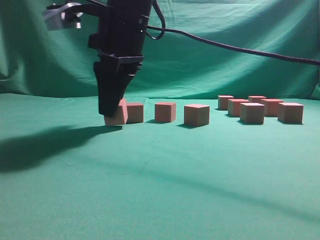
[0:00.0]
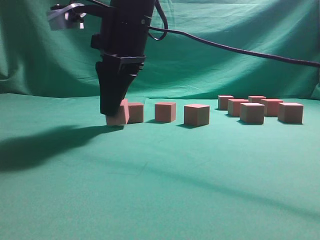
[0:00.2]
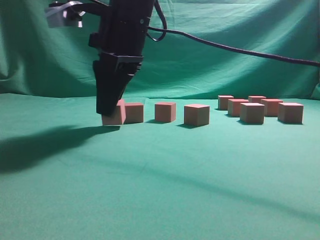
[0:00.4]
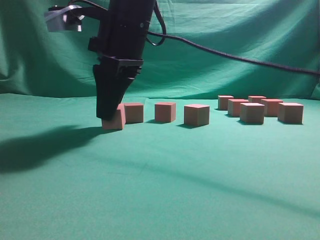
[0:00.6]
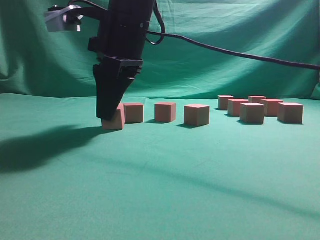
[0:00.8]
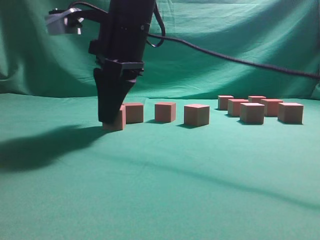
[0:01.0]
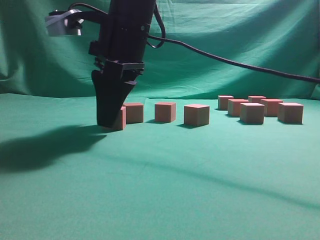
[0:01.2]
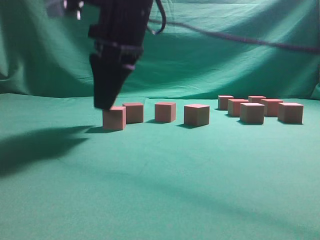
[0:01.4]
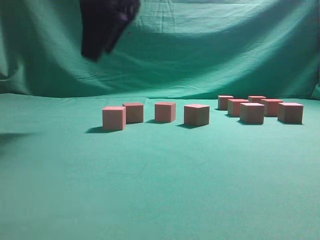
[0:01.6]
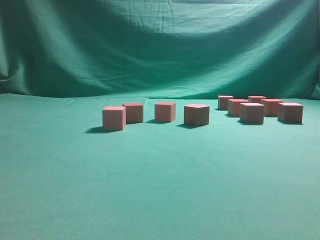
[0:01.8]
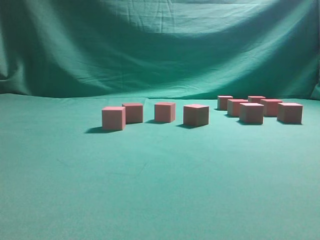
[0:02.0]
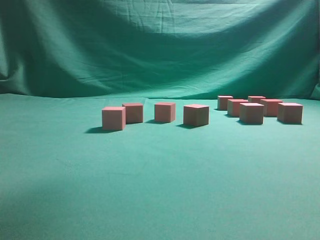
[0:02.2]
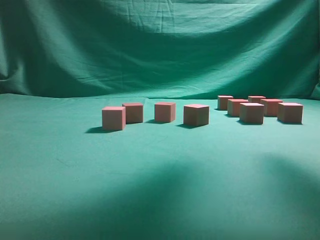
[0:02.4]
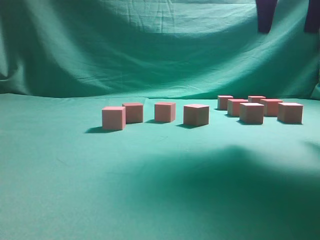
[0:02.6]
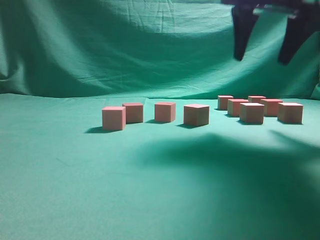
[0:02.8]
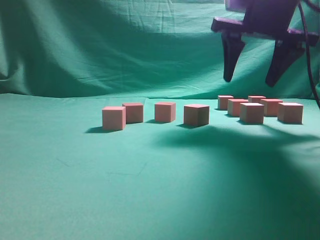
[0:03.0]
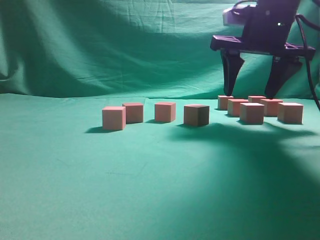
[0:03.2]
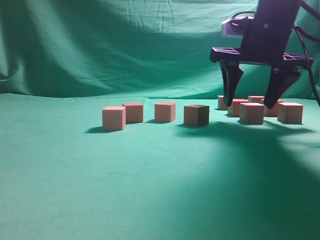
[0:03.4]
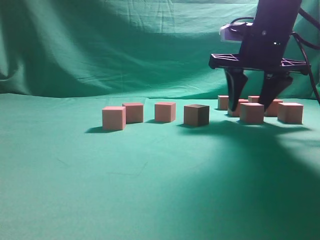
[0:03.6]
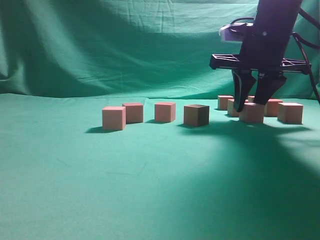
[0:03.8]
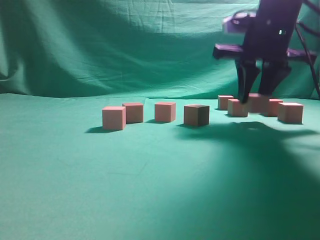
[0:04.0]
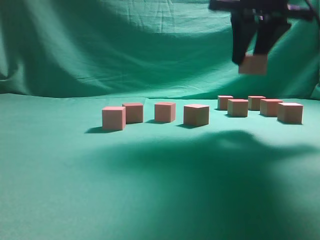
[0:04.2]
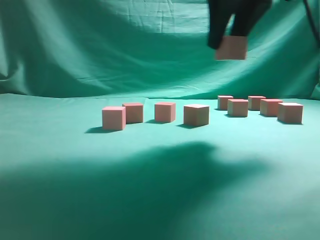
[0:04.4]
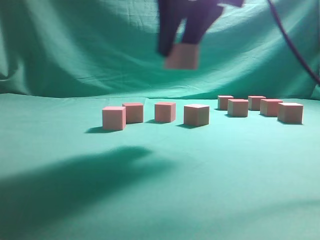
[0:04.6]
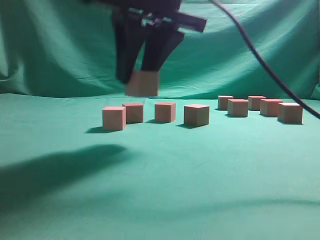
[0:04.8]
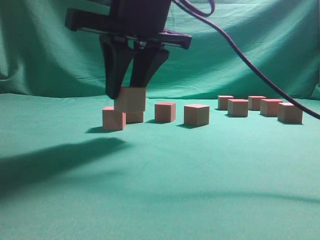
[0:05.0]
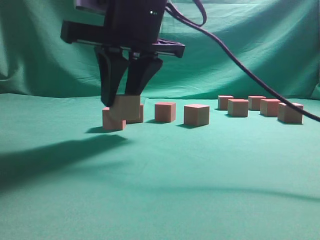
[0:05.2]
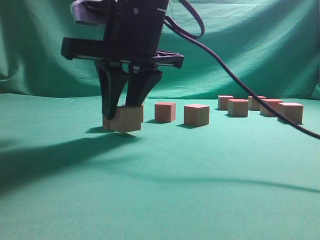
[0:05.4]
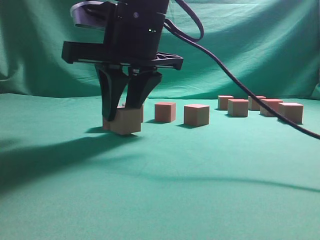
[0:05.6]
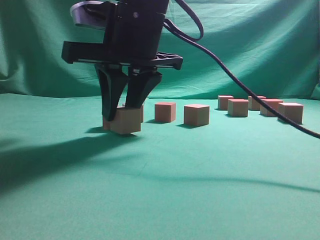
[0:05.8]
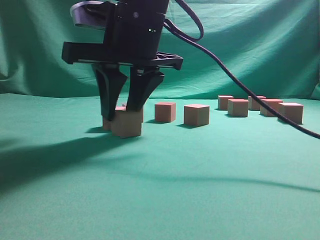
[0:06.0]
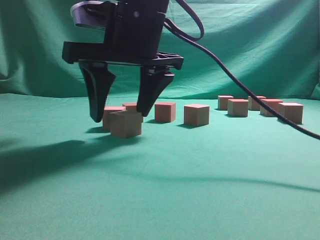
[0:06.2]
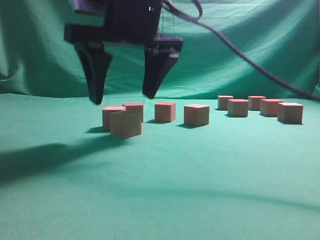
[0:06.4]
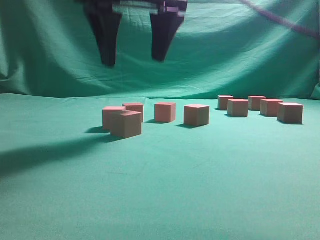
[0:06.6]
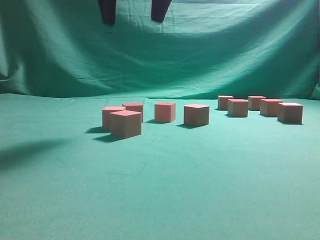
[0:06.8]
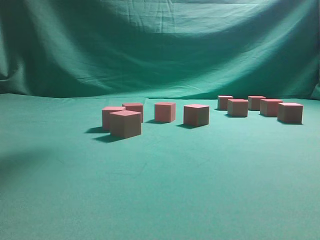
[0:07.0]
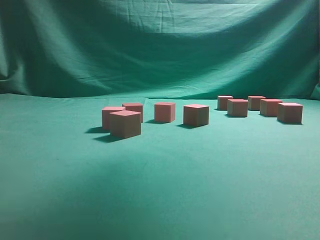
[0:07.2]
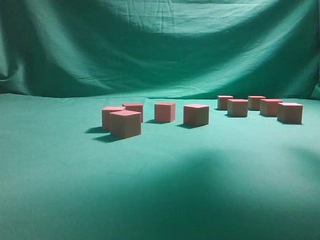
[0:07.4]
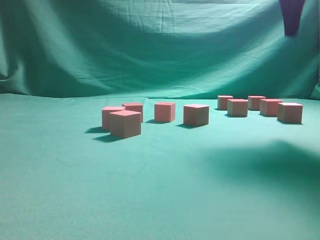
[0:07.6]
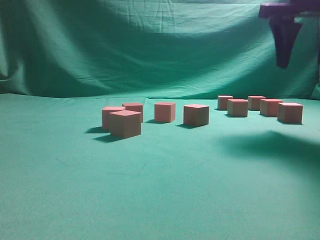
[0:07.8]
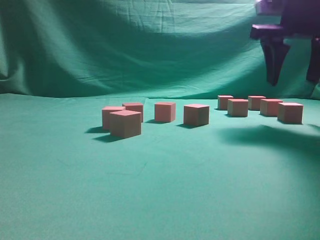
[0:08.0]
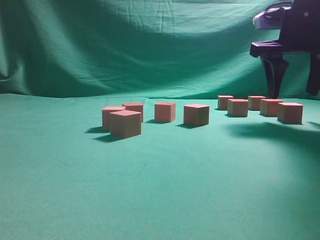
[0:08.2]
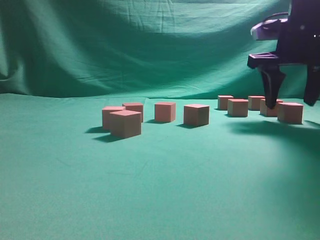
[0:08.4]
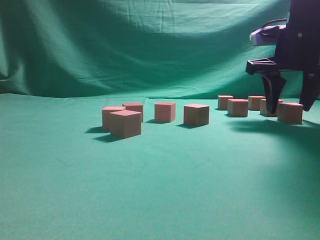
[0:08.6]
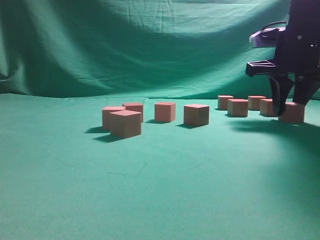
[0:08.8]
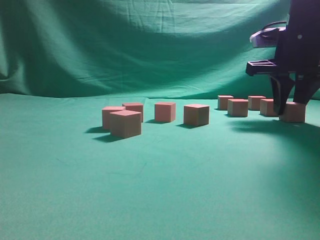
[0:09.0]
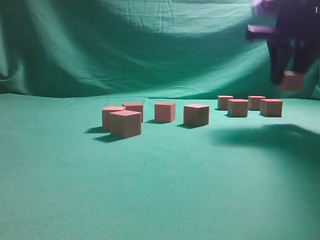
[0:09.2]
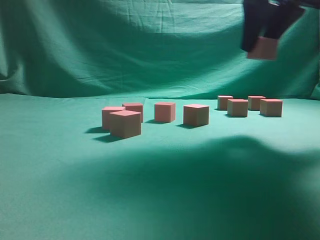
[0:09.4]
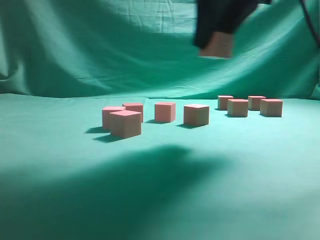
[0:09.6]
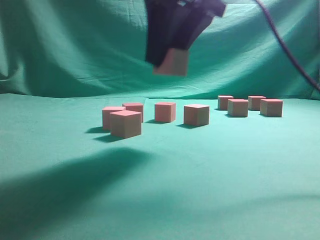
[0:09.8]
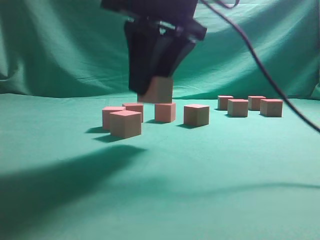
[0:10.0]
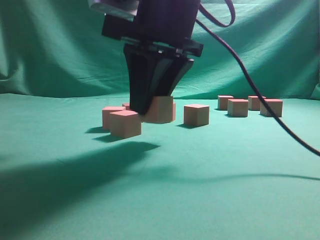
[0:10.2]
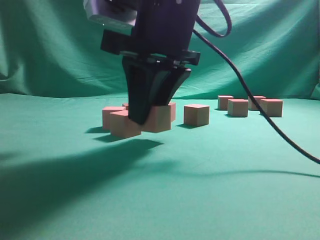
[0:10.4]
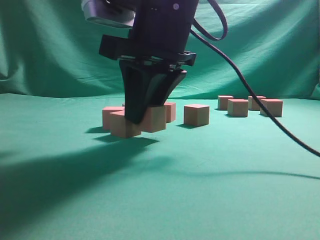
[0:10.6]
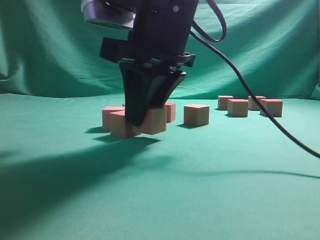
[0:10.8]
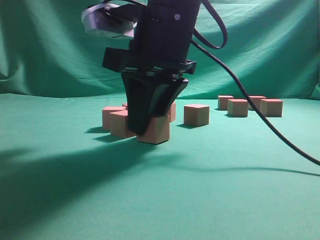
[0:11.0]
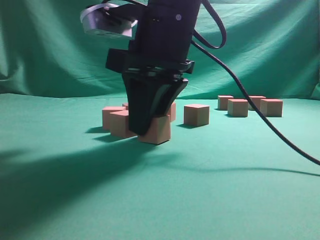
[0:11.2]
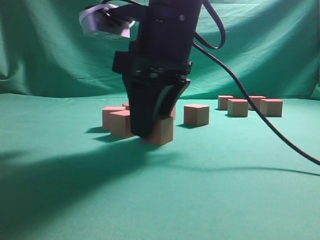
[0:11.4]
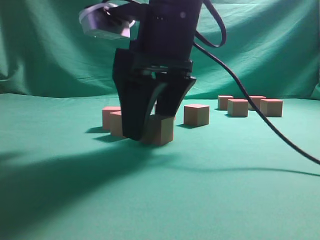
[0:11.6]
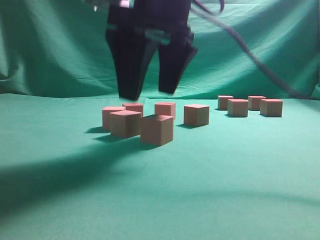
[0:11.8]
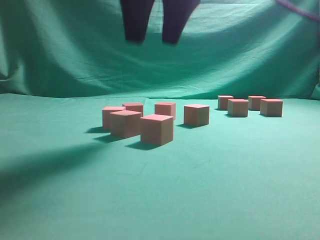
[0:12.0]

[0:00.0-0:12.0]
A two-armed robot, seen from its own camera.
Task of the whole recording: pick up the multiple cubes in two columns one by one and place them in another position on the table.
Step, 1.6 to 4.0 s: Pick up the block on the table.
Step, 4.2 to 6.4 s: Place the block at the correct position to assemble the letter S.
Step, 6.6 to 9.0 s: Pick up the block on the table.
Step, 9.2 to 11.6 s: Place the block at the correct position to assemble the letter S.
0.0 to 1.6 s: The right gripper heads upward, covering roughly 10 cm, and opens.
1.6 to 3.0 s: The right gripper shifts approximately 20 cm to the right.
3.0 to 4.4 s: The right gripper moves backward, to the left and upward, approximately 10 cm, and closes.
4.4 to 6.0 s: The right gripper travels to the left and downward by about 15 cm.
6.0 to 7.6 s: The right gripper goes roughly 25 cm to the right and upward.
7.6 to 9.0 s: The right gripper travels downward by approximately 10 cm, and closes.
9.0 to 10.4 s: The right gripper shifts some 25 cm to the left and backward.
10.4 to 12.0 s: The right gripper is displaced upward by approximately 10 cm, and opens up.

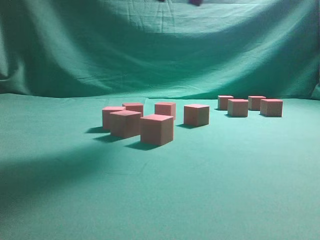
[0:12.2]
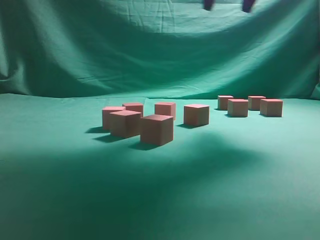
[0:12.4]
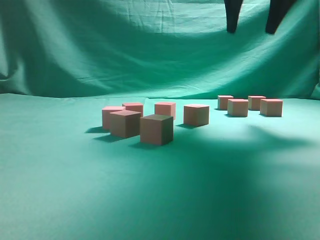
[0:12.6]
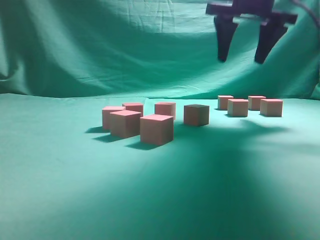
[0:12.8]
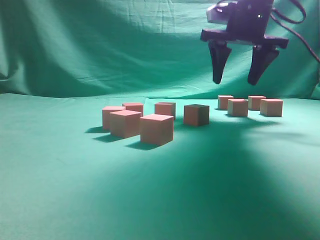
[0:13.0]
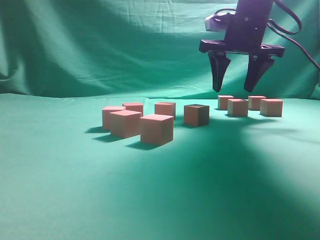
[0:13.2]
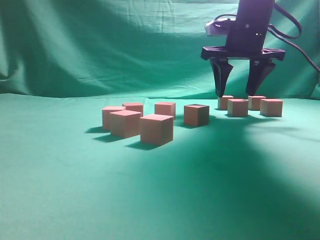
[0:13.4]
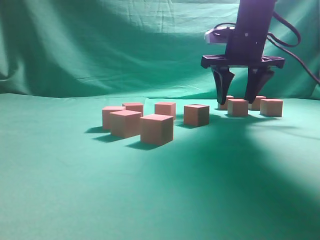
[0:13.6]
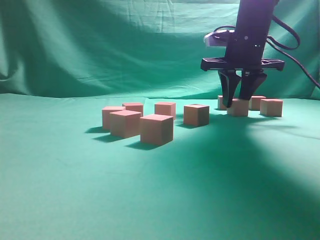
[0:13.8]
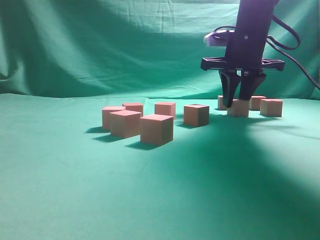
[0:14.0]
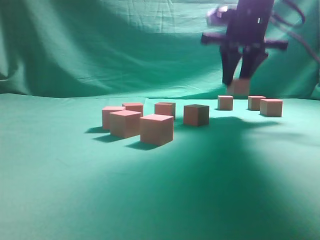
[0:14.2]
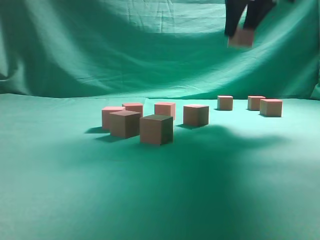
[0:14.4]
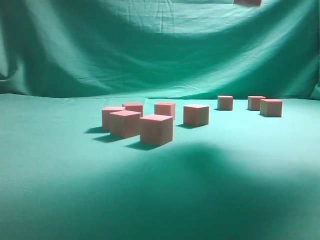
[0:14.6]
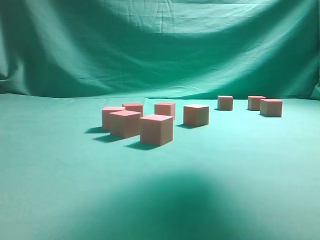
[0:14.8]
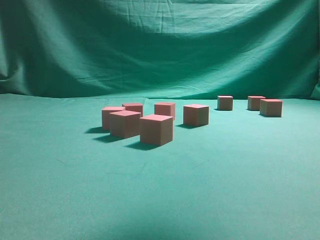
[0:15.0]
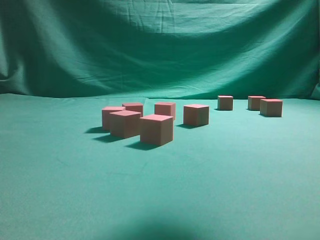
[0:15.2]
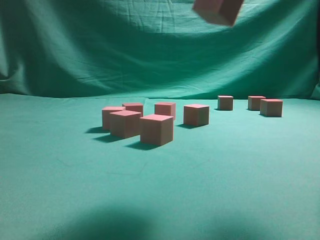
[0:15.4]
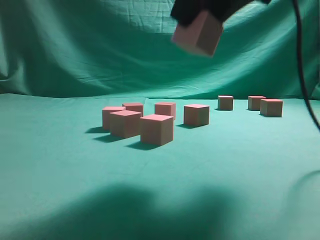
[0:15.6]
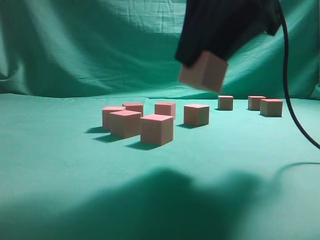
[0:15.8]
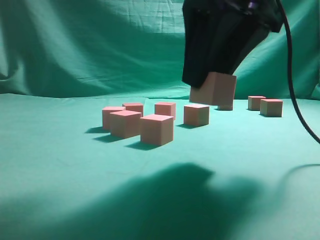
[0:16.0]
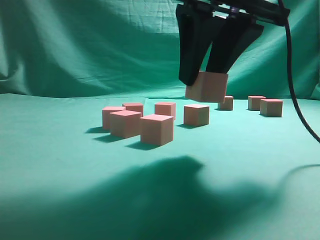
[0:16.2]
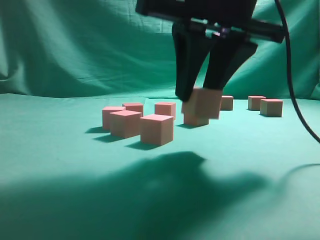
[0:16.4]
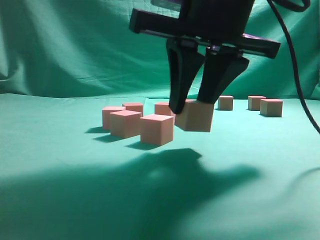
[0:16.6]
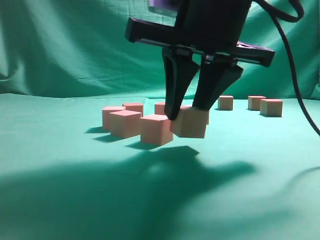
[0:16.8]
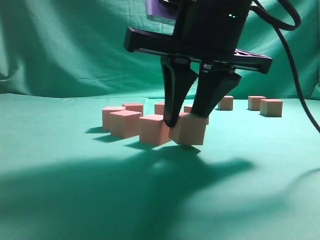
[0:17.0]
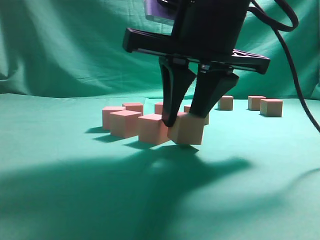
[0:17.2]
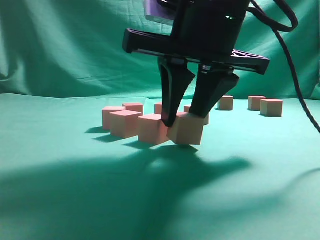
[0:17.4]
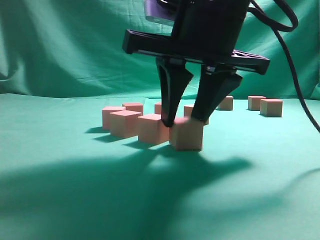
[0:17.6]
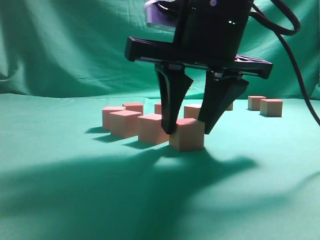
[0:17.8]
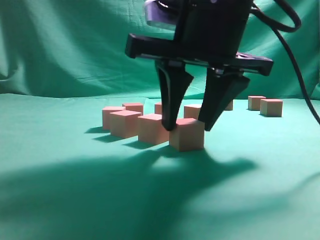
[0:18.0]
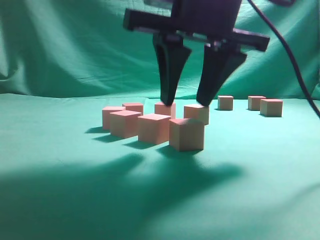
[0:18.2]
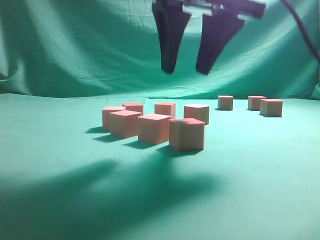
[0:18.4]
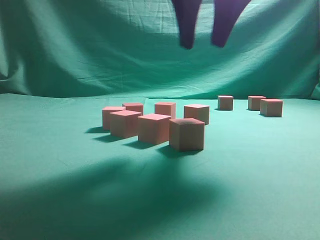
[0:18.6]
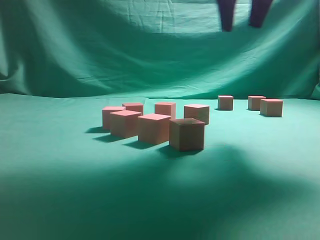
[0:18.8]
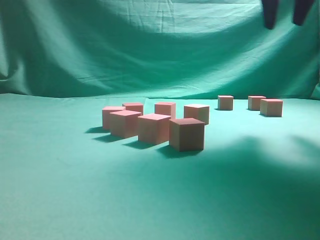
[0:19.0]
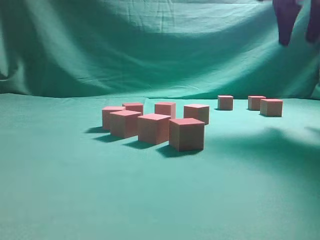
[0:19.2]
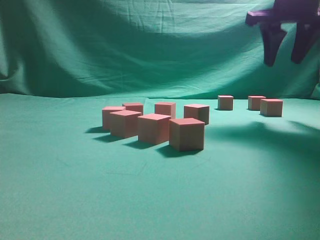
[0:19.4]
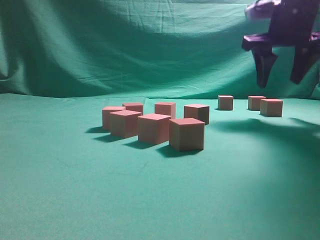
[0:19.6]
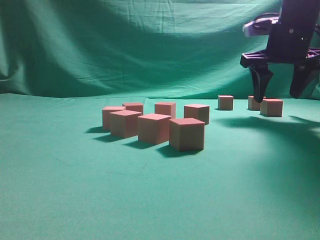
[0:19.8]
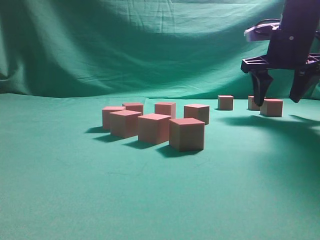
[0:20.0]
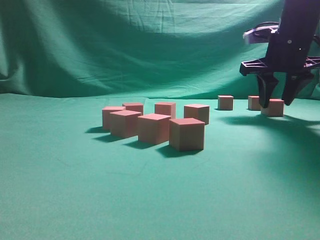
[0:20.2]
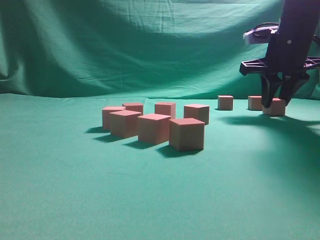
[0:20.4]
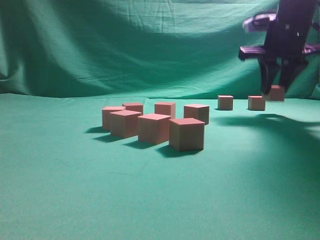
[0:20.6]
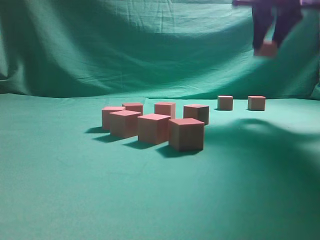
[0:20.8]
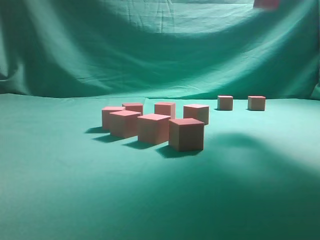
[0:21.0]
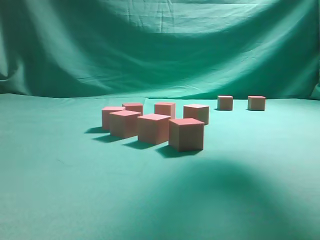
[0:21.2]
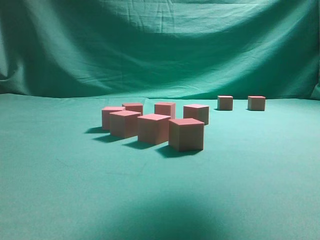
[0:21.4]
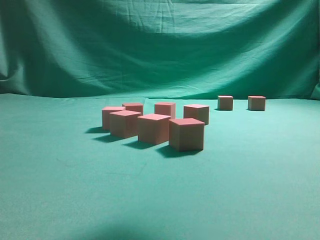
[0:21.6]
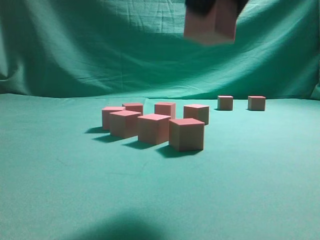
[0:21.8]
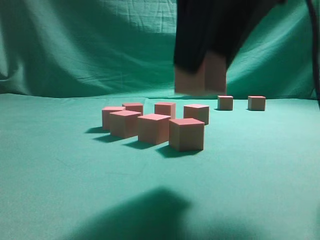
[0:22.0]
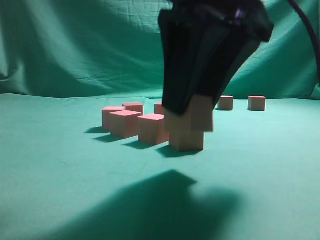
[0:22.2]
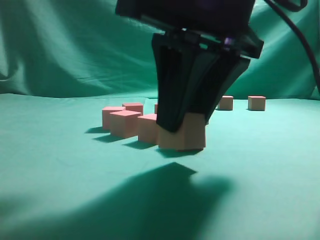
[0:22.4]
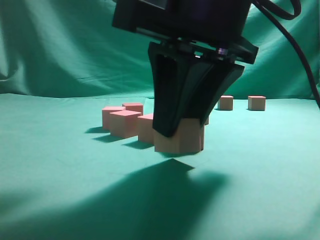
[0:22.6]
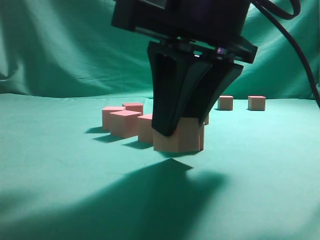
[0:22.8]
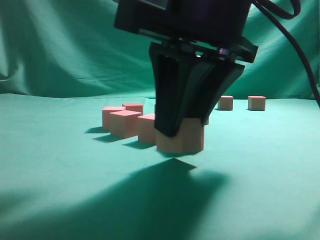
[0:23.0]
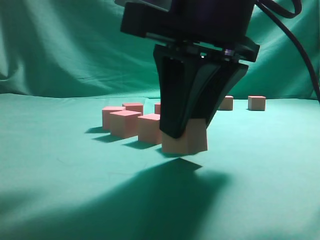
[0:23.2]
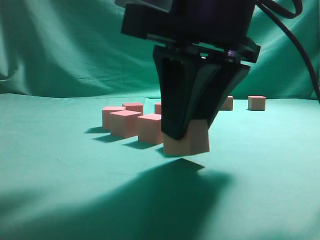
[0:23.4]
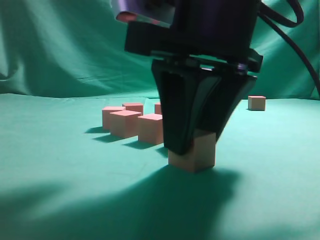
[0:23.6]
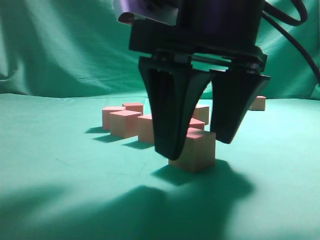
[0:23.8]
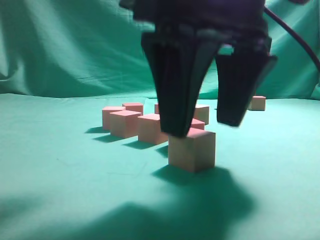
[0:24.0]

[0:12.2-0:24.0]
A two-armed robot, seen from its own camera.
Task of the whole recording: pick up the multiple cubes in two columns one by one and place them in another position on the table.
Step, 12.2 to 14.0 s: Pick up the block on the table.
Step, 14.2 to 18.2 s: Place the block at the correct position to assemble the letter S.
Step, 18.4 to 20.4 s: Pick up the block on the table.
Step, 20.8 to 24.0 s: Place the block at the correct position to assemble the letter S.
12.2 to 13.6 s: The right gripper is displaced downward, forward and to the right by about 20 cm.
13.6 to 15.2 s: The right gripper is displaced backward and upward by some 25 cm.
15.2 to 16.6 s: The right gripper shifts some 15 cm downward and to the left.
18.2 to 19.6 s: The right gripper travels forward and to the right by some 25 cm.
19.6 to 21.0 s: The right gripper moves upward and backward, about 15 cm, and closes its fingers.
21.0 to 22.6 s: The right gripper is displaced downward, backward and to the left by approximately 25 cm.
22.6 to 24.0 s: The right gripper opens its fingers.
